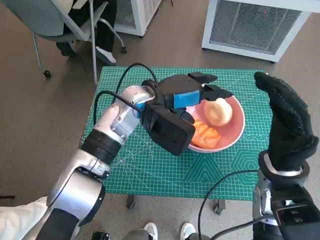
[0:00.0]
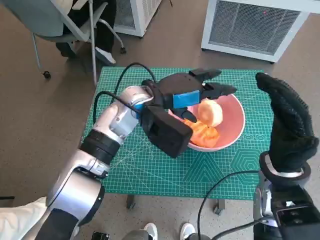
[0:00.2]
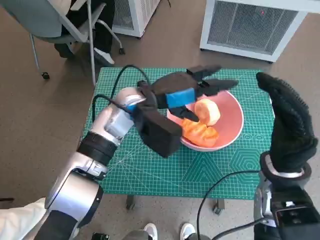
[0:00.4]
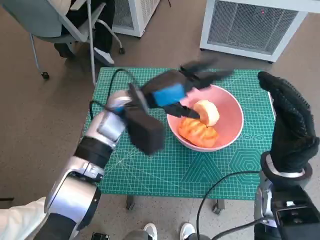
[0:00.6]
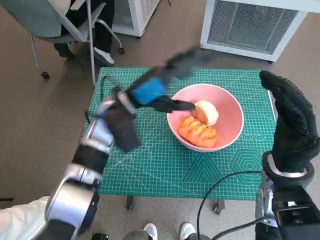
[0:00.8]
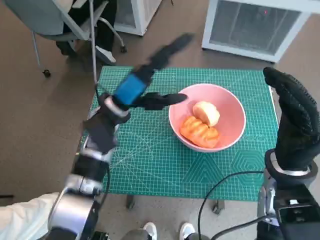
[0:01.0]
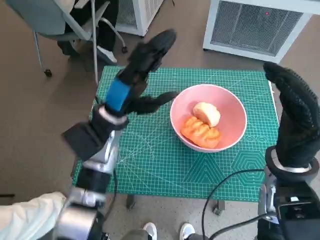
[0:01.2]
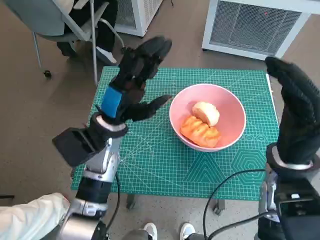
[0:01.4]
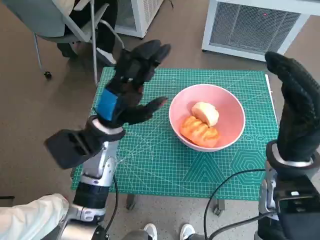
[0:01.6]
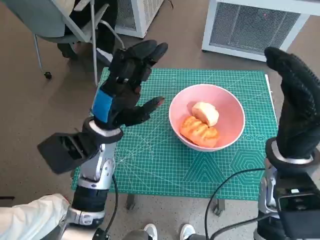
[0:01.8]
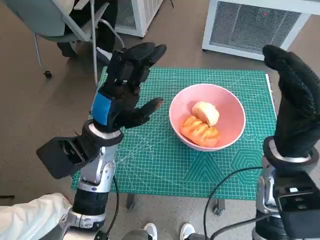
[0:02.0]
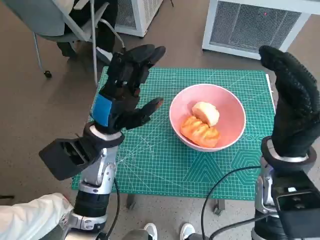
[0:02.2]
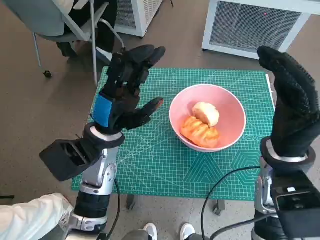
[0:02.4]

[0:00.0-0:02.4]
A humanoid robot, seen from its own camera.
Task of the whole recording: Push the bowl to the center of the table and put the bread into the bowl.
0:00.0 to 0:01.2: The left hand travels to the left by some 5 cm.

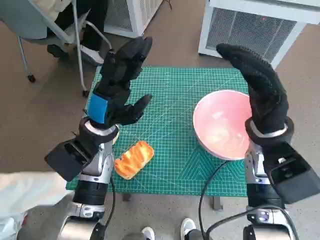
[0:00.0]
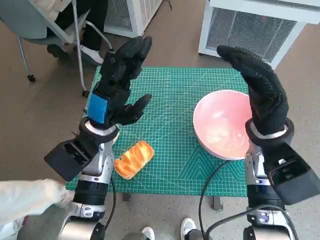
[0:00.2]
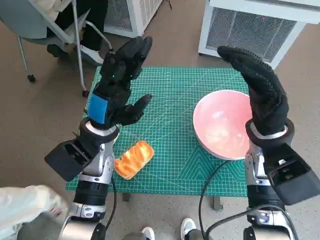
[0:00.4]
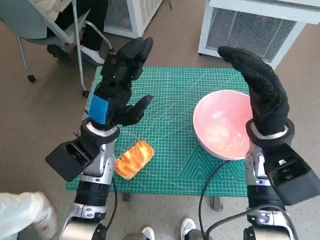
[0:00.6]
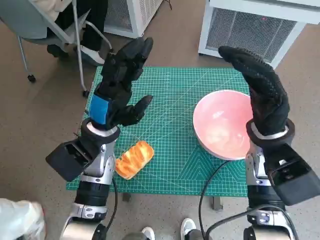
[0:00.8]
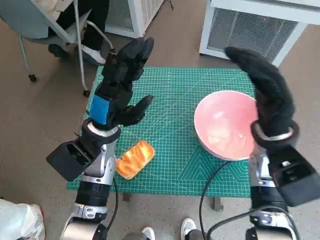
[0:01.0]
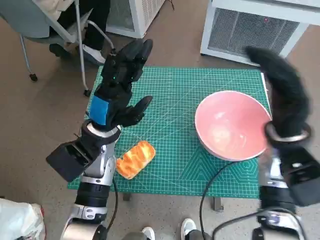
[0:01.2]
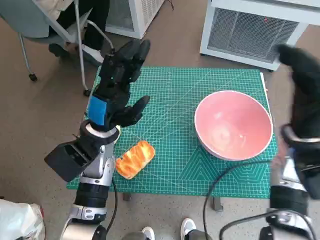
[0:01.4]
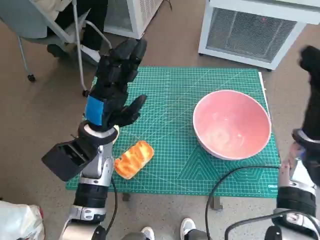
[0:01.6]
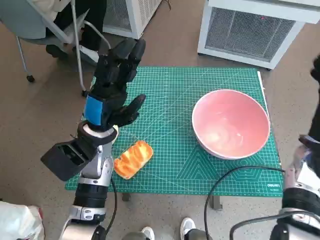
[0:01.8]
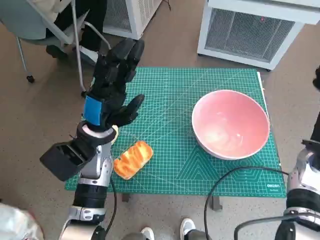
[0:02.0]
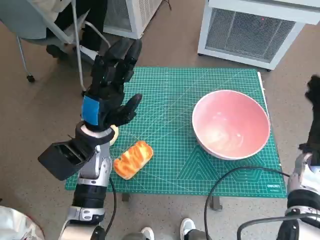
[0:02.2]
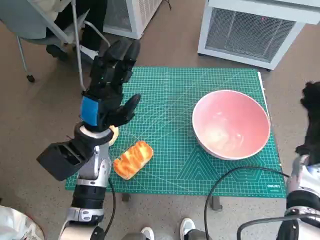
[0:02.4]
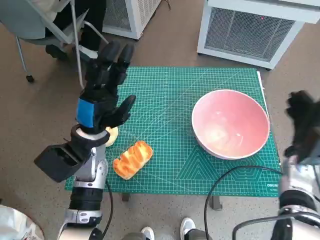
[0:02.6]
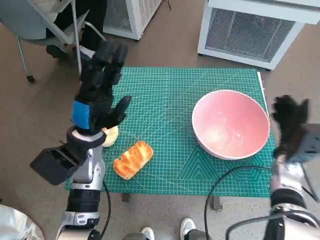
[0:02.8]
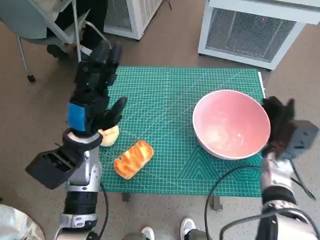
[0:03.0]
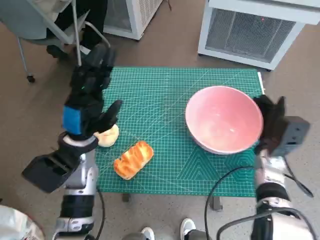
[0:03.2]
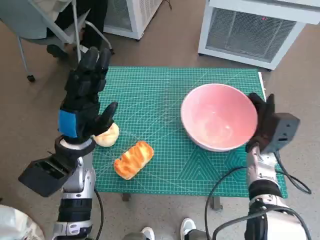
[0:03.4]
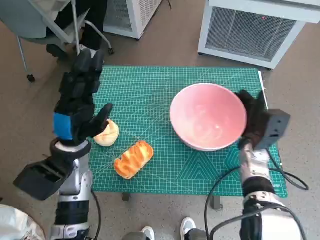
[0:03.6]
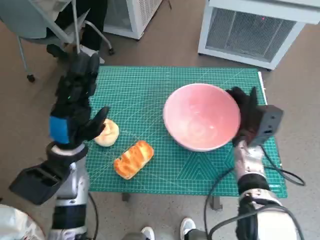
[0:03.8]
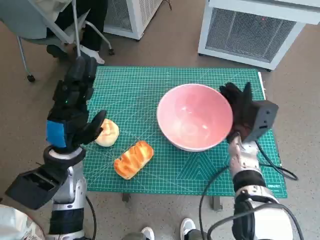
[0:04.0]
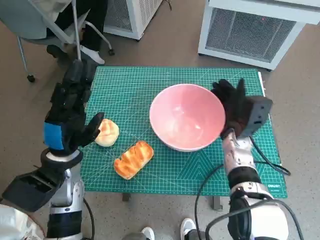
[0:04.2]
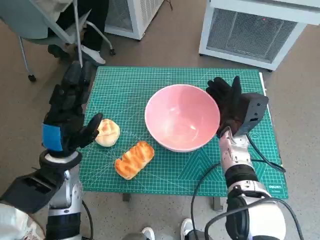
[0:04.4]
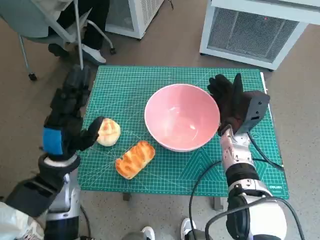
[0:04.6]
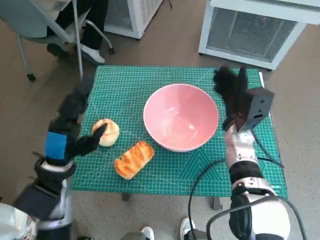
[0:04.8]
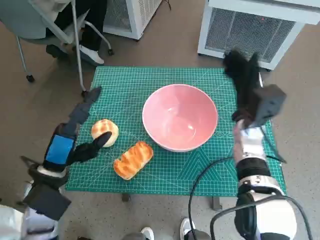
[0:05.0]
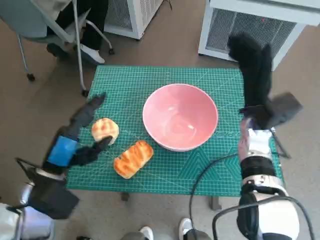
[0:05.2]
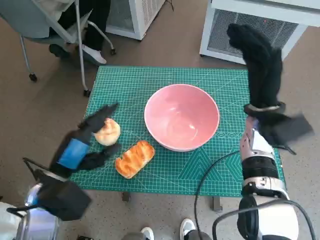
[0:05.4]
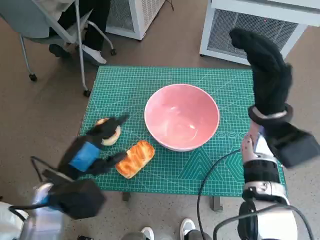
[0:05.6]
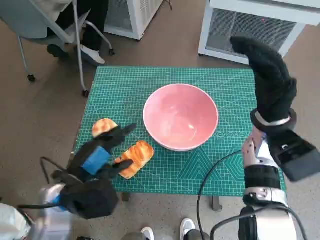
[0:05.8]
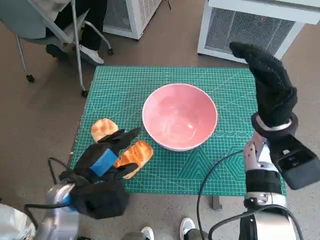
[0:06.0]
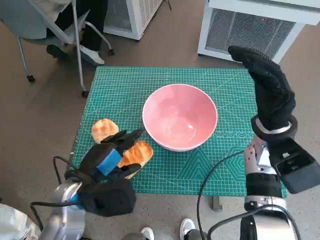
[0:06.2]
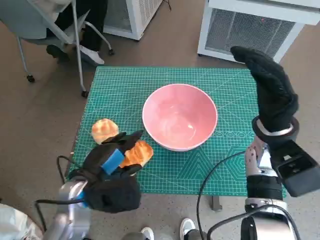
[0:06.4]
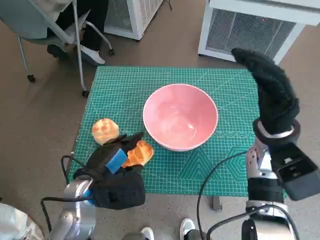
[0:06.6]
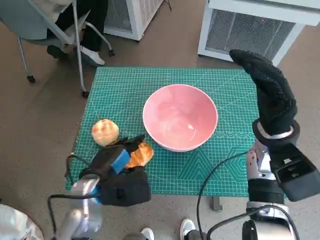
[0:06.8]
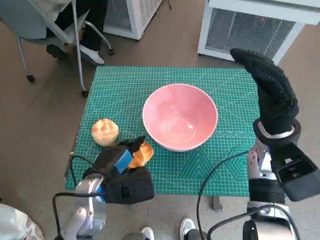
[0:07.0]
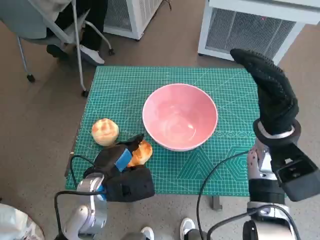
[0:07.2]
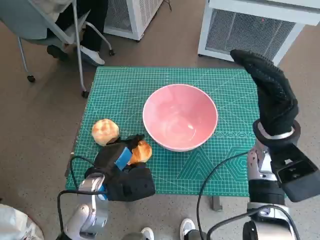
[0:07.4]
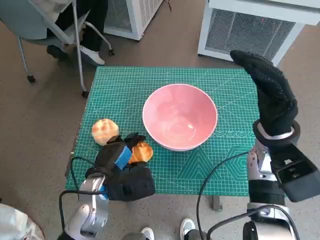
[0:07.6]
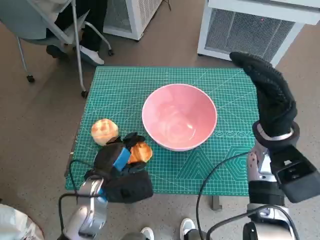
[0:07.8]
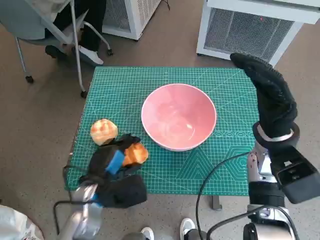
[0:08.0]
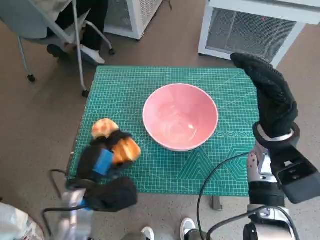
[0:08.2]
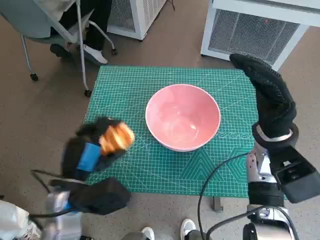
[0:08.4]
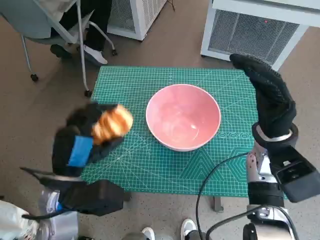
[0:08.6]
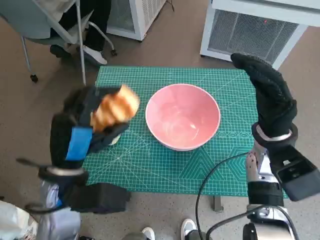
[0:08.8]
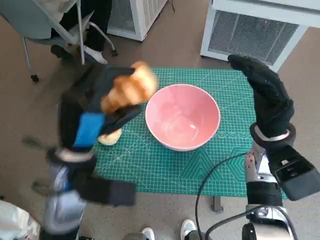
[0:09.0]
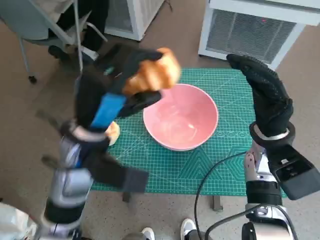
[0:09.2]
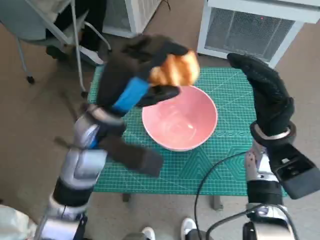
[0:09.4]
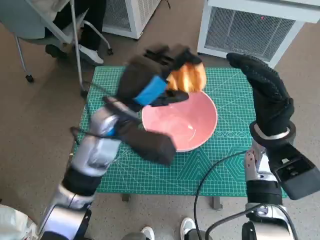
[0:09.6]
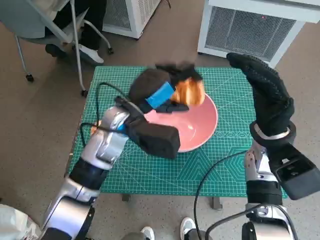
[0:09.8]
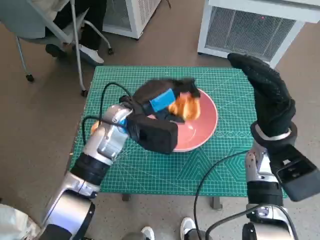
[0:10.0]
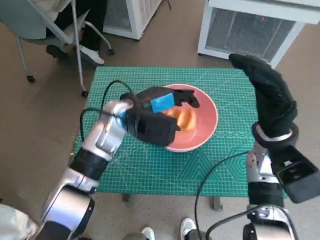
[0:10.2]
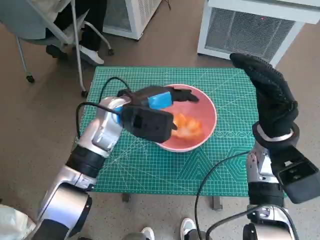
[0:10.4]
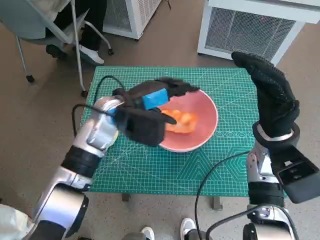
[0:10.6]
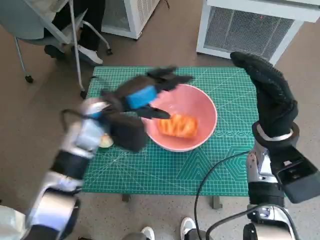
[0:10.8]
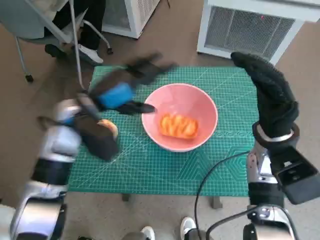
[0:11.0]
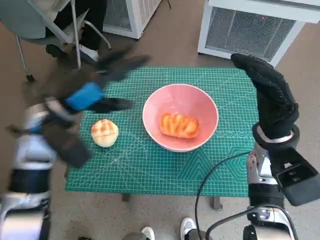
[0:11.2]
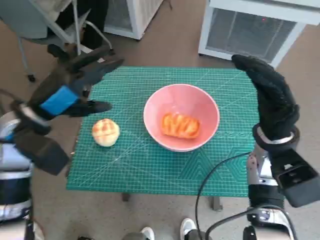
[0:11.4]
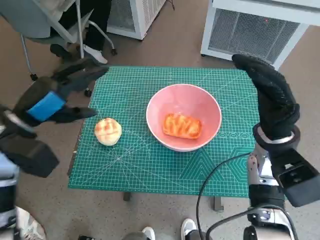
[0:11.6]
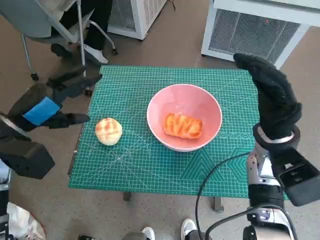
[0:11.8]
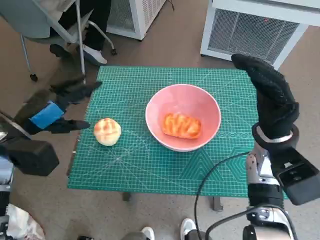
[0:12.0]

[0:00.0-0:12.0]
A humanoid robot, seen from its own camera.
Task of the whole recording: Push the bowl to the center of the table and put the bread into the bowl.
Step, 0:00.0 to 0:04.8: Move the pink bowl to the center of table with right hand.
Step, 0:05.0 to 0:07.4: Grasp the long bread with left hand.
Step, 0:07.6 to 0:10.2: Place the long bread in pink bowl with left hand.
0:01.6 to 0:03.0: The right hand shifts some 10 cm downward.
0:03.0 to 0:04.4: The right hand is displaced to the left by approximately 10 cm. Meanwhile the left hand shifts by some 5 cm.
0:04.4 to 0:06.0: The right hand heads upward, covering approximately 10 cm. Meanwhile the left hand changes place by about 5 cm.
0:06.0 to 0:07.6: The left hand changes place by about 5 cm.
0:07.6 to 0:09.0: The left hand shifts approximately 10 cm upward.
0:09.0 to 0:10.4: The left hand travels forward by about 15 cm.
0:10.4 to 0:12.0: The left hand shifts approximately 20 cm to the left and backward.

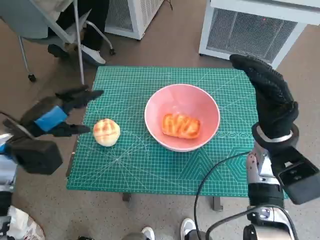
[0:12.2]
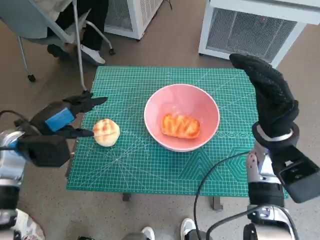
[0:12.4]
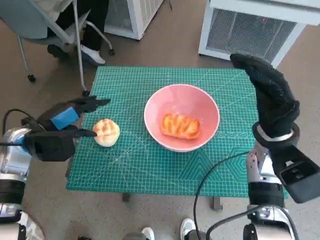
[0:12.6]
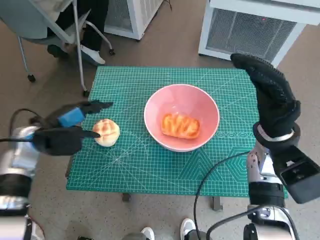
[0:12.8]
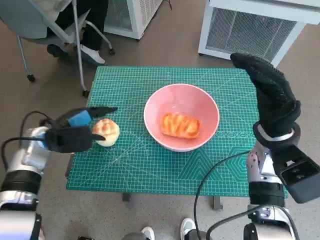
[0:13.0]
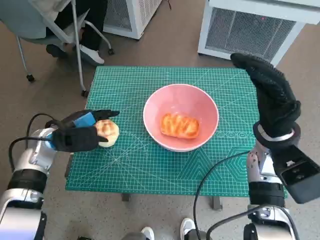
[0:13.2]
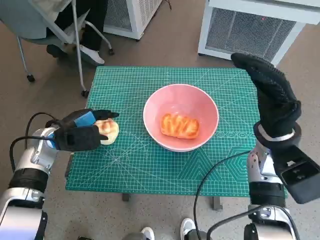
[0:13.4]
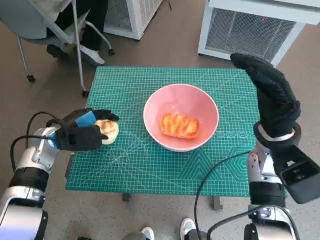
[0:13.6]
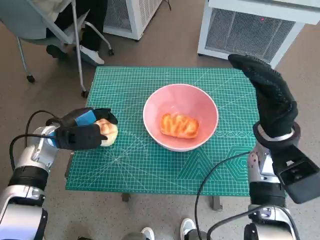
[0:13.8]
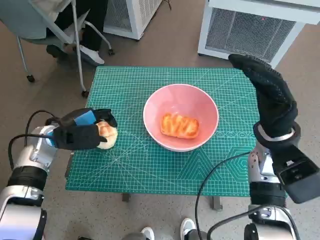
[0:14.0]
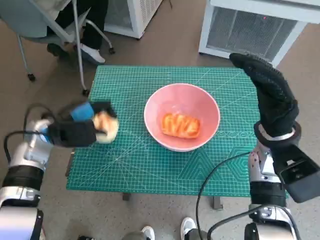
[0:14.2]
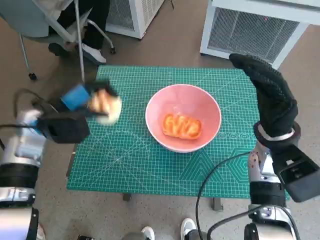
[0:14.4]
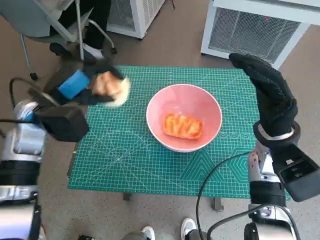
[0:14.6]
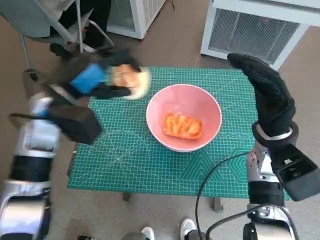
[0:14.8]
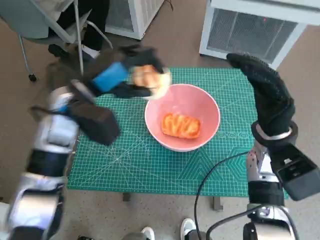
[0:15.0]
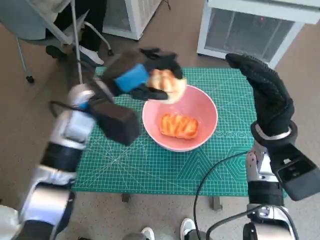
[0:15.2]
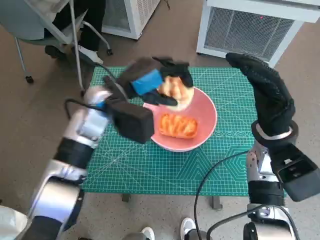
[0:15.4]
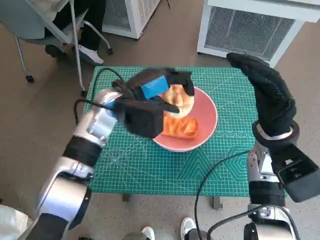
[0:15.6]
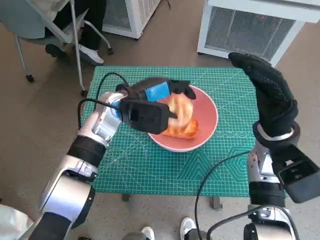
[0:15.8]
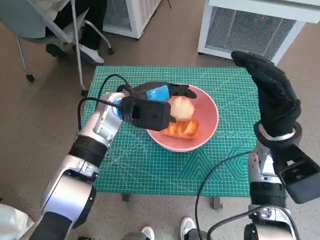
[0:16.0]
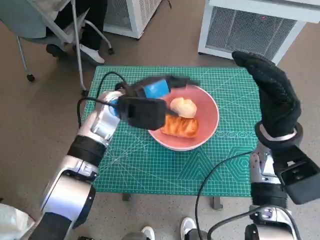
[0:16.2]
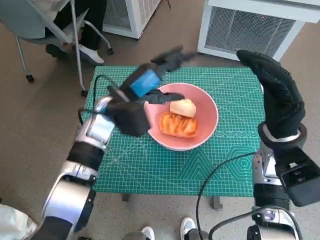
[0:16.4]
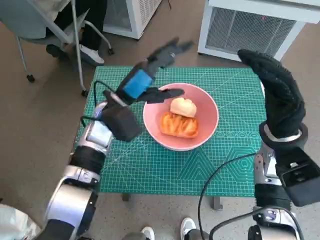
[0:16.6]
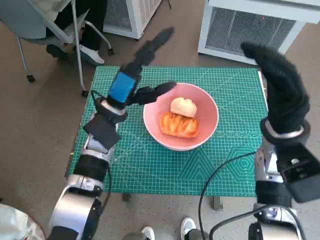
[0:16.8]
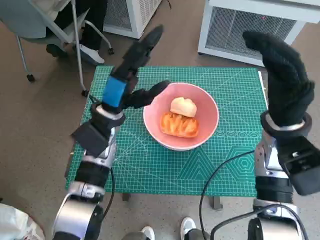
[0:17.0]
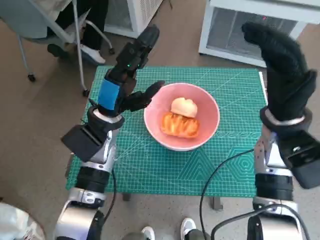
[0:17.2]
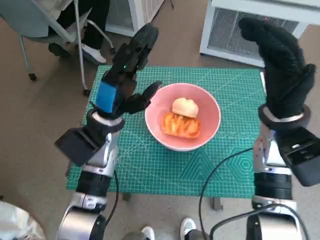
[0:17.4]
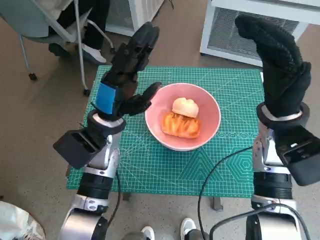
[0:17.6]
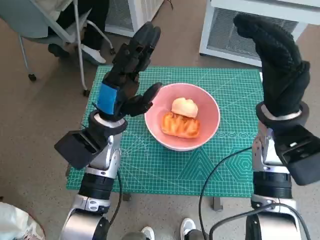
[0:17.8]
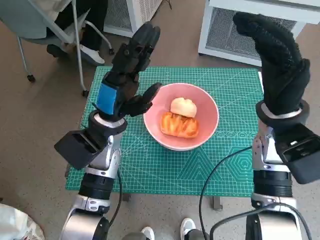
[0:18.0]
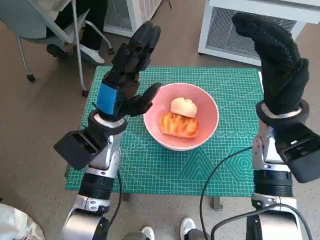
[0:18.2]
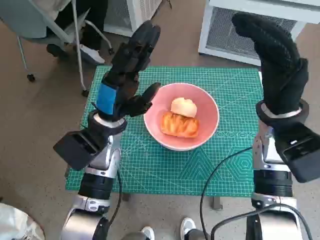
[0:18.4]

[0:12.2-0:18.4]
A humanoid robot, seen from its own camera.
Task of the whole recording: Push the bowl to the center of the table and put the bread into the bowl.
Step, 0:14.0 to 0:16.0: Place the round bread in pink bowl with left hand.
0:12.2 to 0:13.8: The left hand goes some 5 cm downward.
0:13.8 to 0:15.4: The left hand goes approximately 15 cm to the right and upward.

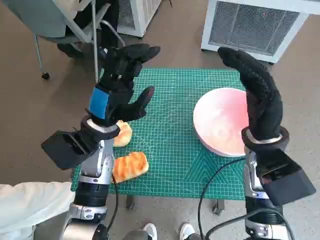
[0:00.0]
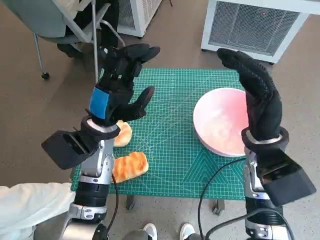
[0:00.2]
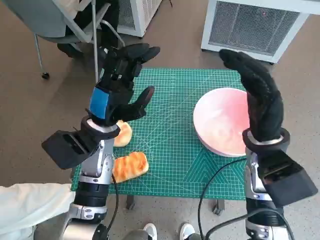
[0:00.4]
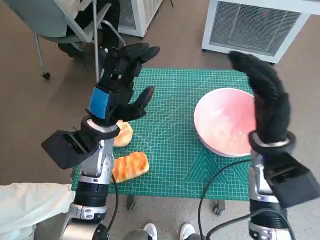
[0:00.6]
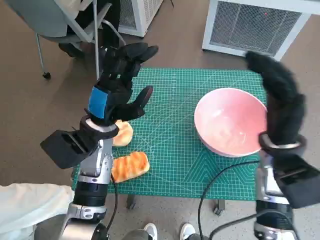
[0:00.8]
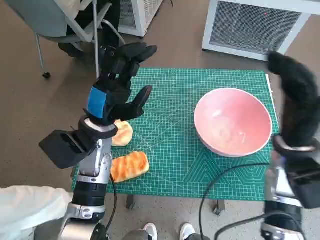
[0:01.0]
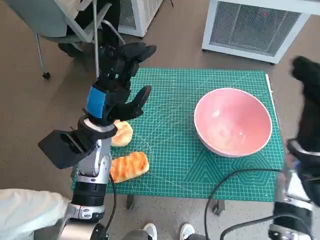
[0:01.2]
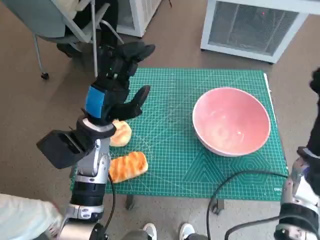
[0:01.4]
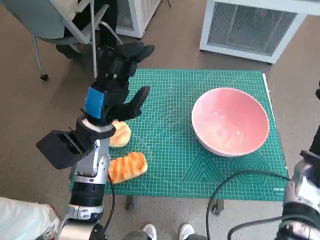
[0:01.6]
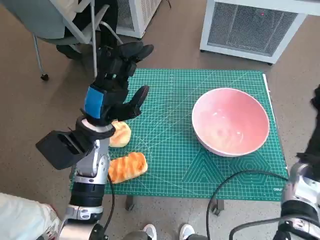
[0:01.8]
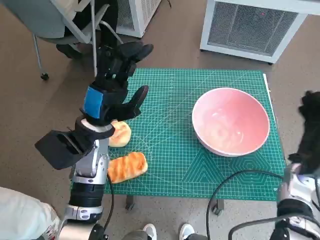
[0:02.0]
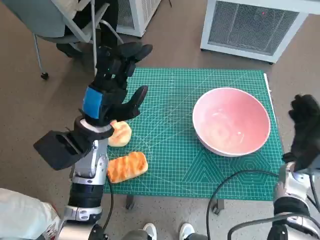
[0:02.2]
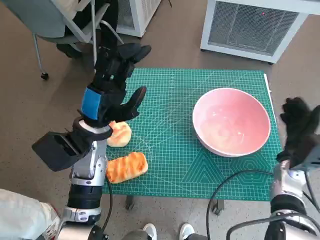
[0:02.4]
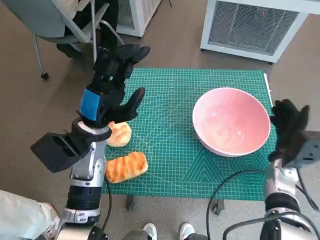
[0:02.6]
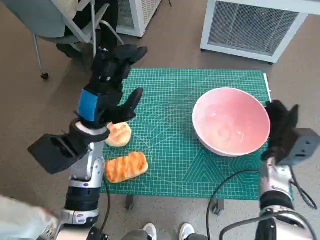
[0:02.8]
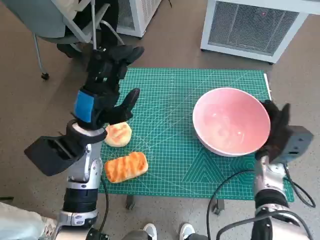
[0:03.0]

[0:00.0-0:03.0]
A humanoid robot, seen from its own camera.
Task of the whole recording: Push the bowl to the center of the table and put the bread into the bowl.
0:01.6 to 0:03.0: The right hand shifts some 5 cm downward.
